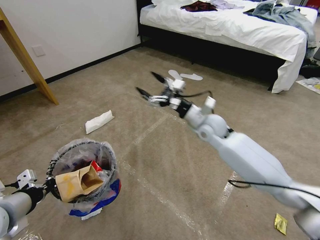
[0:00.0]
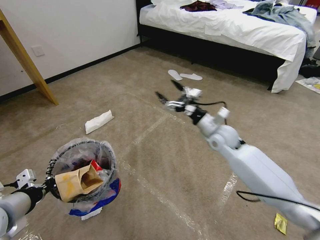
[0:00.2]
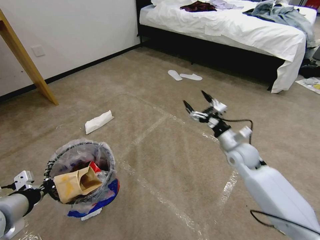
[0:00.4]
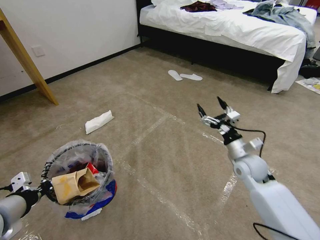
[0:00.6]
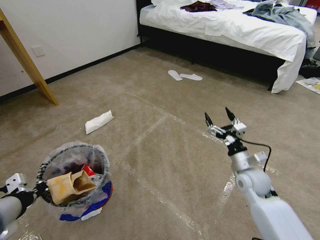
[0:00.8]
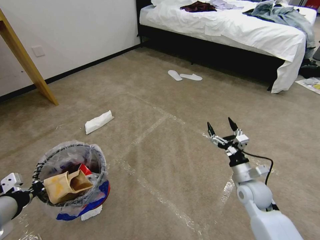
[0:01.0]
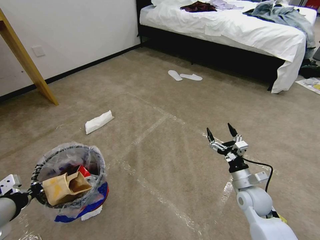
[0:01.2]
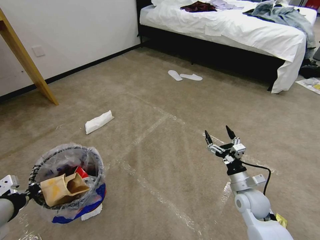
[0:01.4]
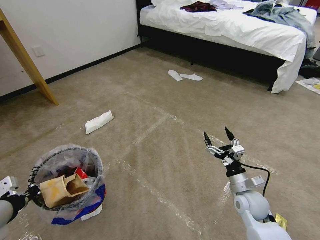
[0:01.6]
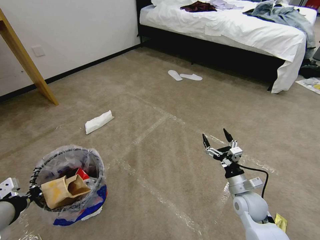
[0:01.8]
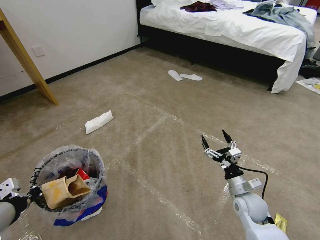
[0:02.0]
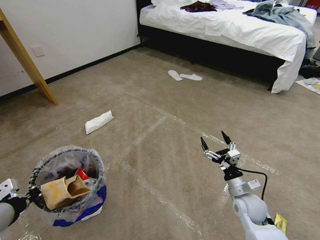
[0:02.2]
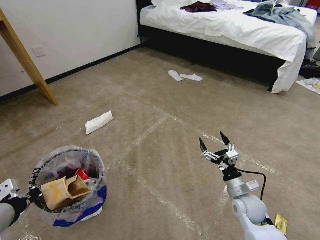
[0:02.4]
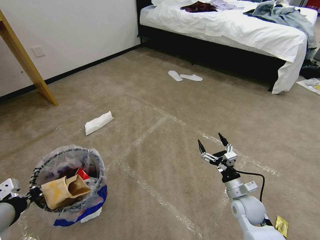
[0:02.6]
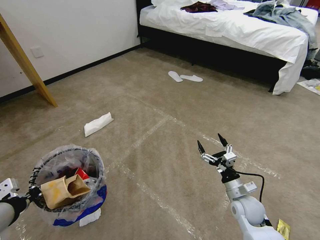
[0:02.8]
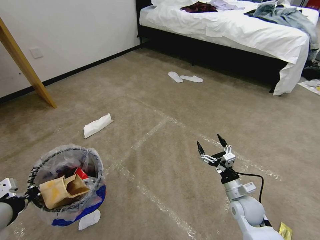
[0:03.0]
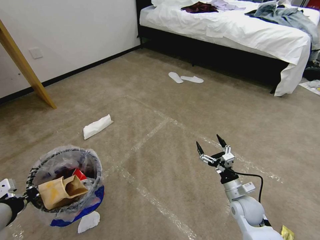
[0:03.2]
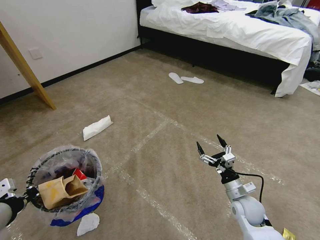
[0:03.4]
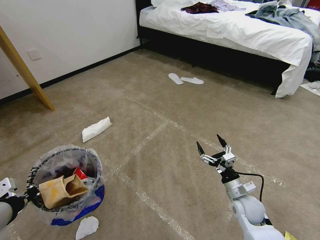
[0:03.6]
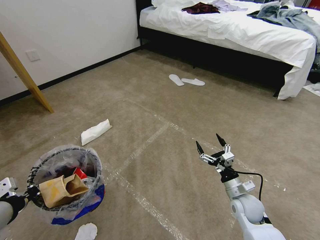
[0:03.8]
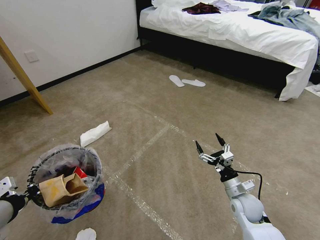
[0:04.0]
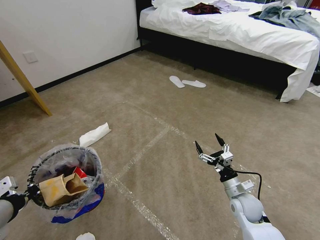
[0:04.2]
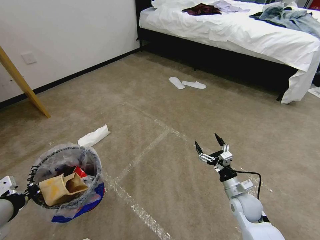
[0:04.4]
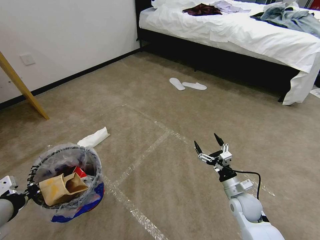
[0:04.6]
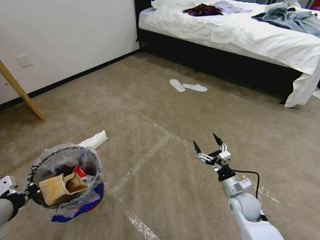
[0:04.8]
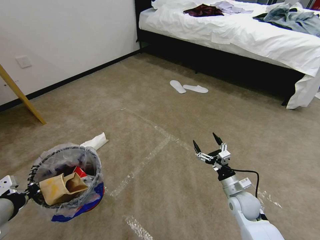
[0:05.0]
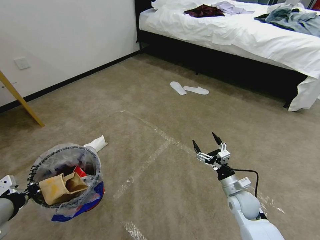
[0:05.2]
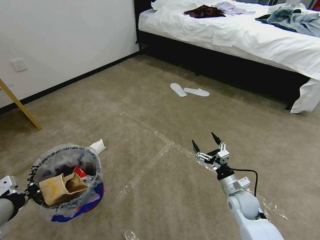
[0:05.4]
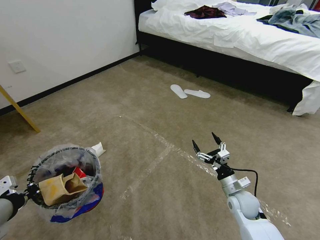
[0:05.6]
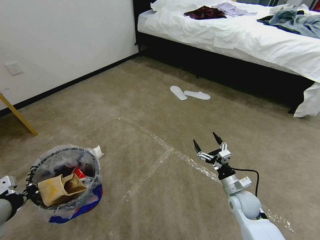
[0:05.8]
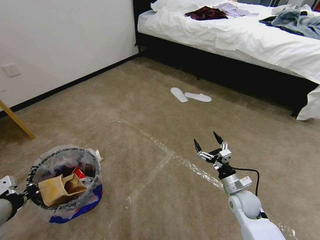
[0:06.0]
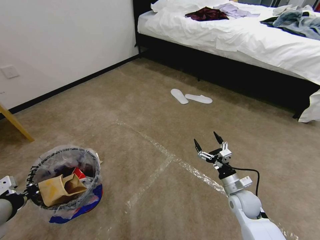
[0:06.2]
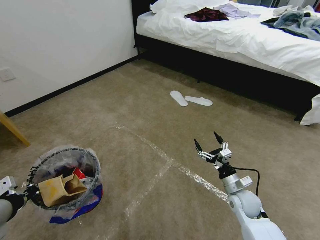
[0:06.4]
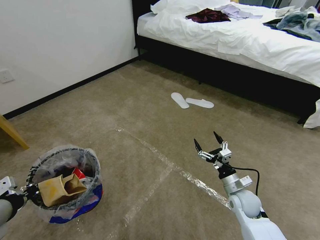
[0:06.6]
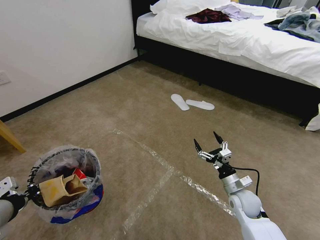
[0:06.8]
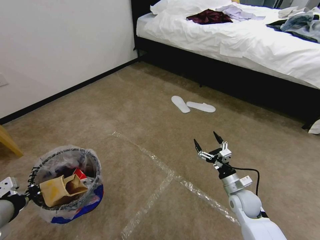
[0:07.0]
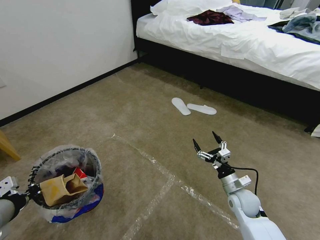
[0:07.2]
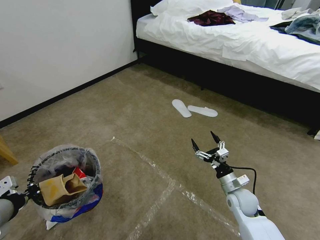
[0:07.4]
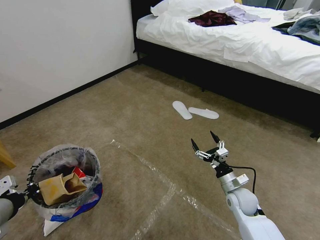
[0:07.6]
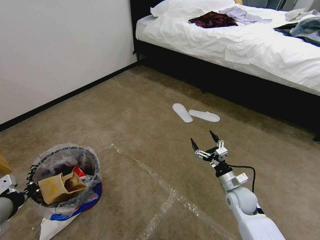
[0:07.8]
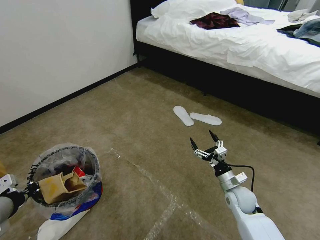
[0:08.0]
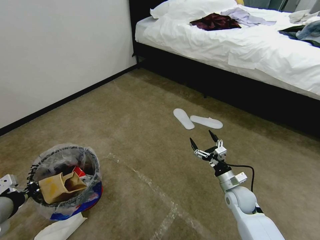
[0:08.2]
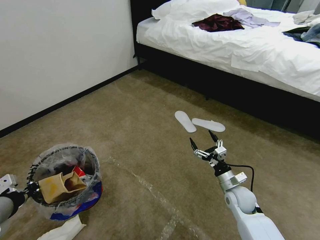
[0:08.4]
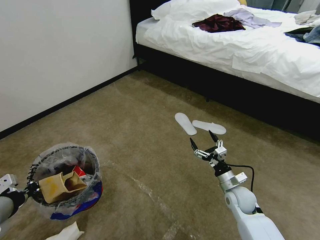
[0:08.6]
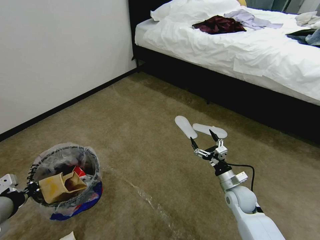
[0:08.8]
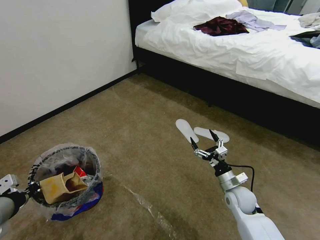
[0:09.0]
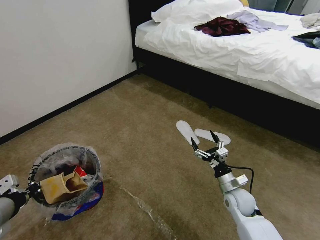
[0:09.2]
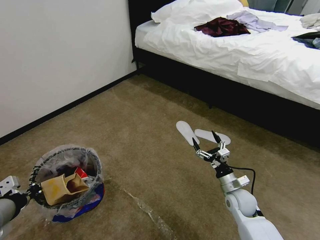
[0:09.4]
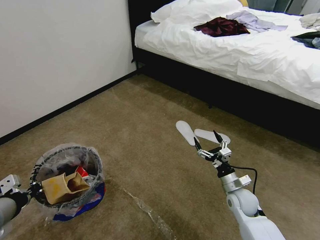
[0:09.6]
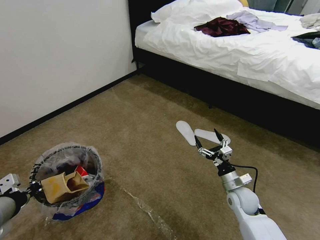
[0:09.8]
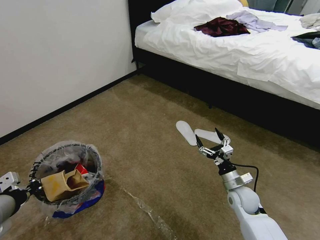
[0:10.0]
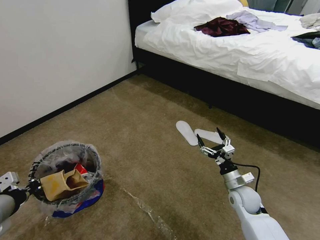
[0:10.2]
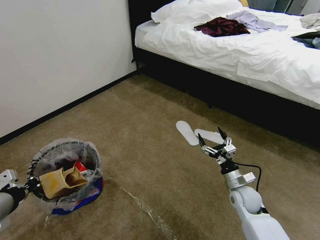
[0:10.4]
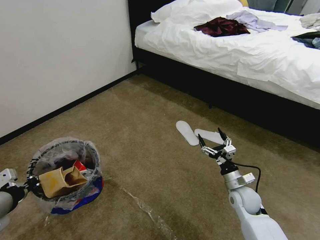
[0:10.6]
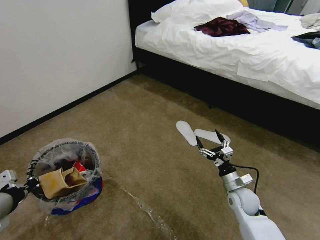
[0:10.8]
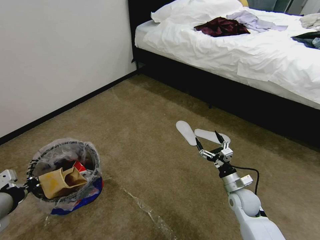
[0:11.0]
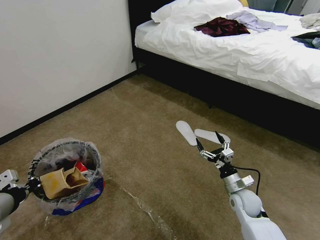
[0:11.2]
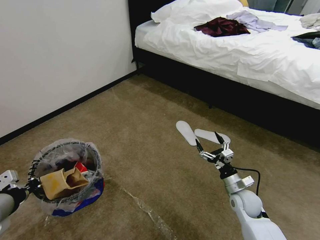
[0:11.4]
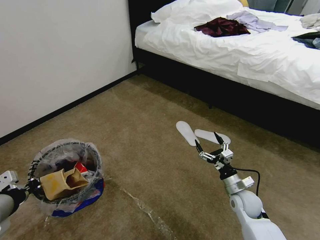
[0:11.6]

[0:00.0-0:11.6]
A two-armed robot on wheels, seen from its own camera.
Task of the whole recording: Pick up the trash bin and place the garbage on the floor into it.
0:00.0 to 0:01.4: The right gripper travels backward, downward and to the right by roughly 30 cm.
0:01.4 to 0:02.8: The grippers make only small movements.
0:08.8 to 0:10.2: The two grippers keep their place.
0:10.2 to 0:11.6: The grippers move only a little.

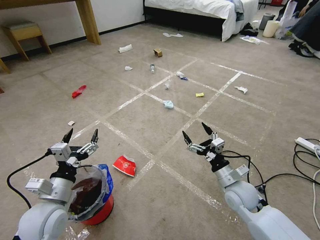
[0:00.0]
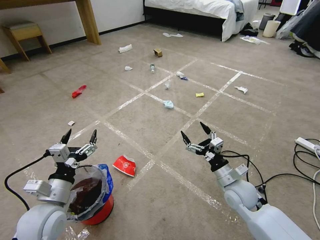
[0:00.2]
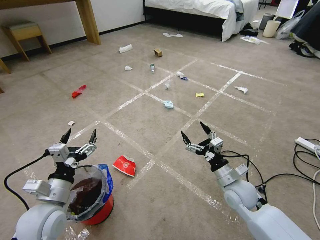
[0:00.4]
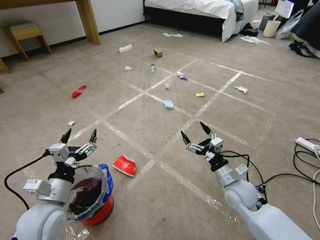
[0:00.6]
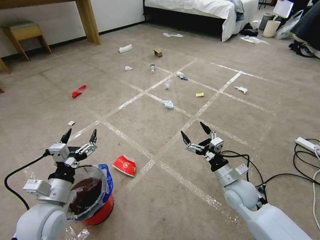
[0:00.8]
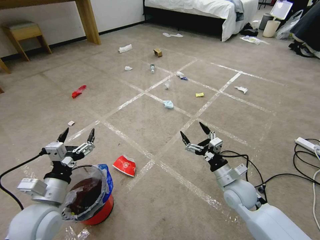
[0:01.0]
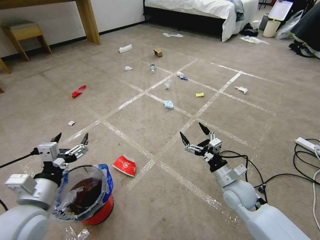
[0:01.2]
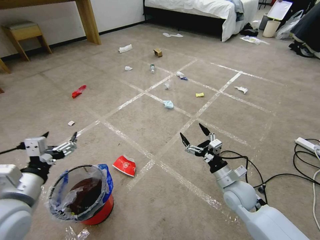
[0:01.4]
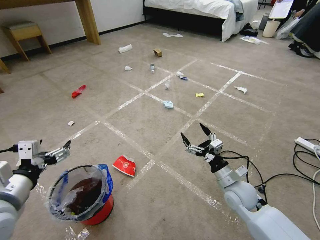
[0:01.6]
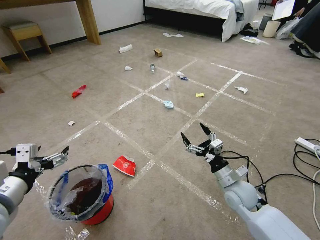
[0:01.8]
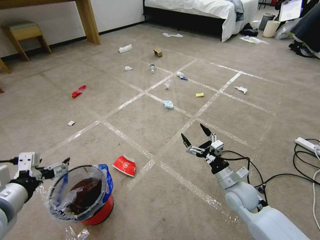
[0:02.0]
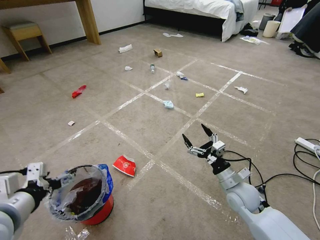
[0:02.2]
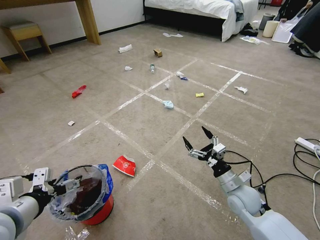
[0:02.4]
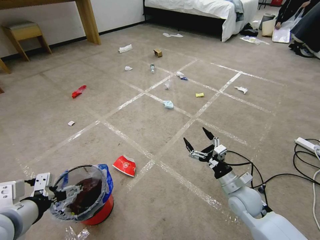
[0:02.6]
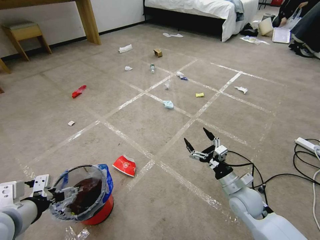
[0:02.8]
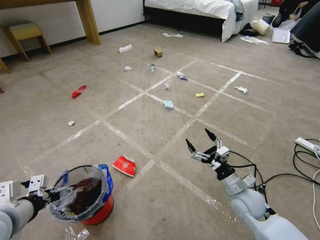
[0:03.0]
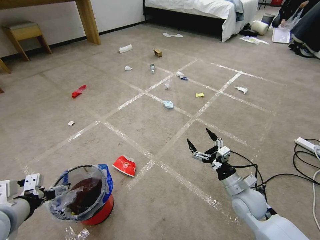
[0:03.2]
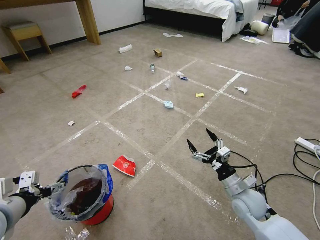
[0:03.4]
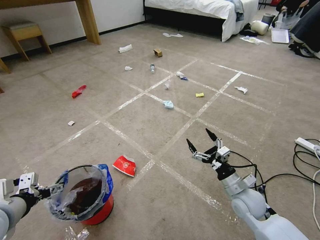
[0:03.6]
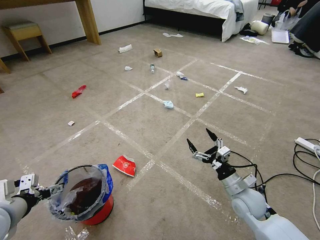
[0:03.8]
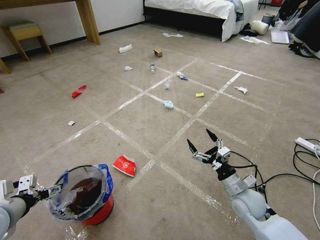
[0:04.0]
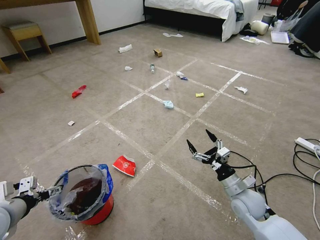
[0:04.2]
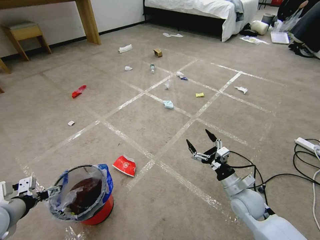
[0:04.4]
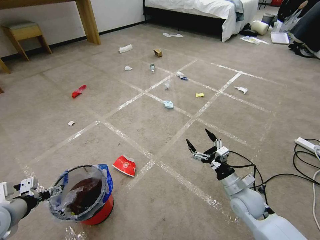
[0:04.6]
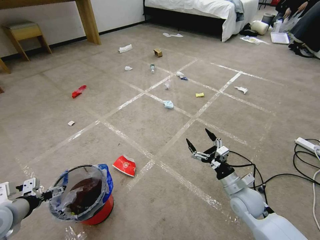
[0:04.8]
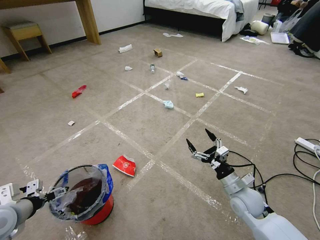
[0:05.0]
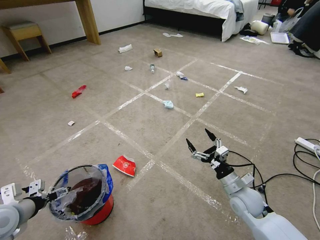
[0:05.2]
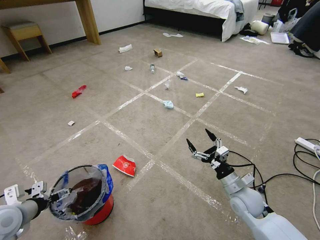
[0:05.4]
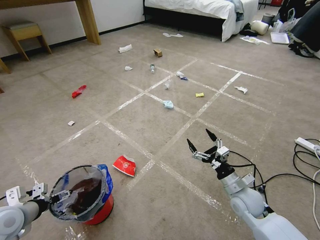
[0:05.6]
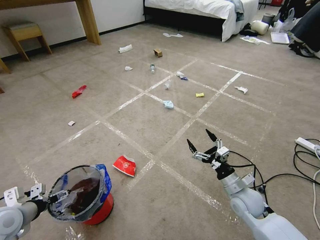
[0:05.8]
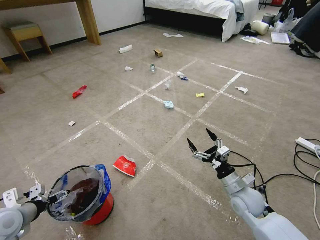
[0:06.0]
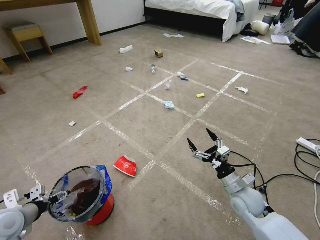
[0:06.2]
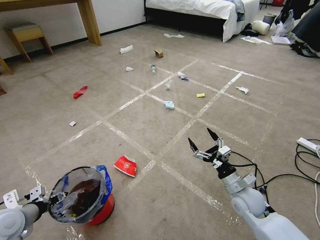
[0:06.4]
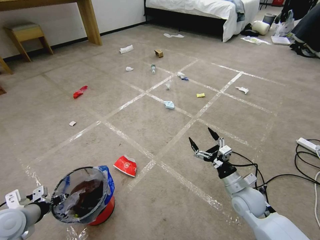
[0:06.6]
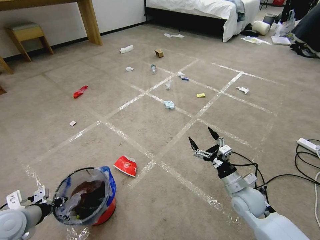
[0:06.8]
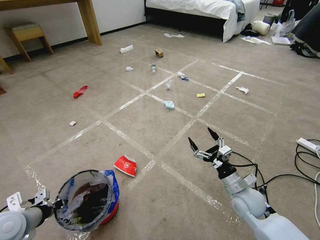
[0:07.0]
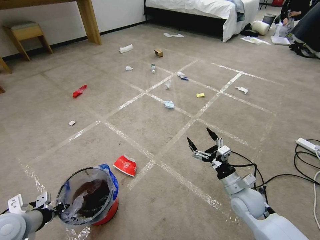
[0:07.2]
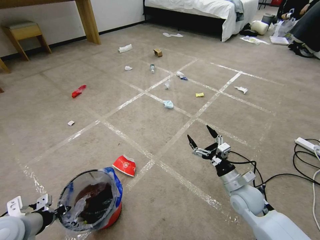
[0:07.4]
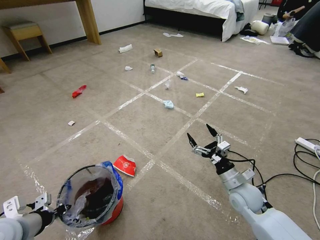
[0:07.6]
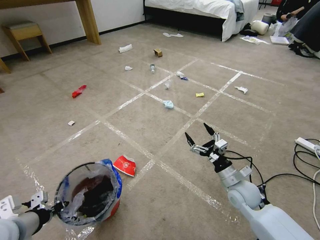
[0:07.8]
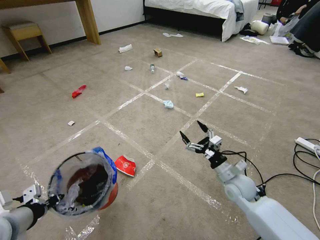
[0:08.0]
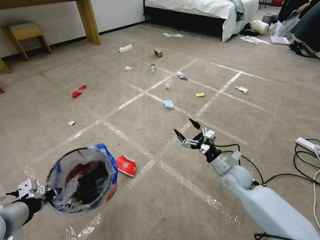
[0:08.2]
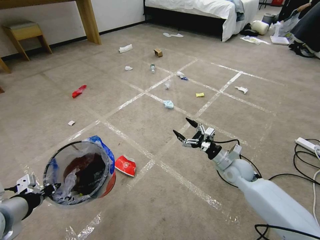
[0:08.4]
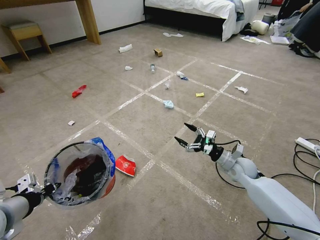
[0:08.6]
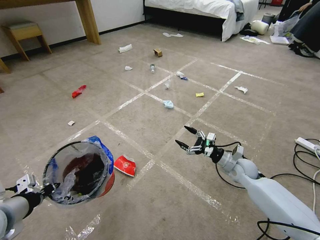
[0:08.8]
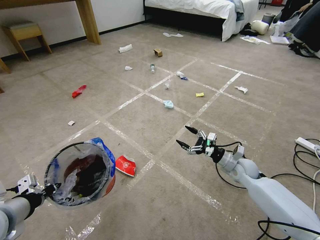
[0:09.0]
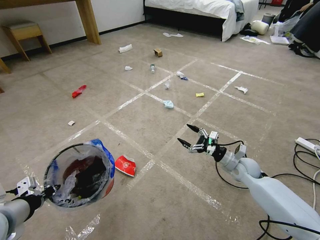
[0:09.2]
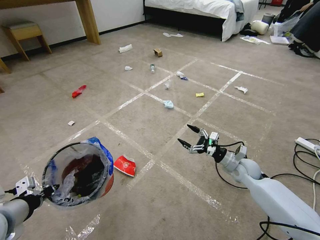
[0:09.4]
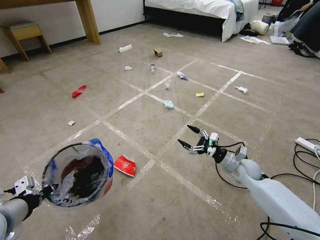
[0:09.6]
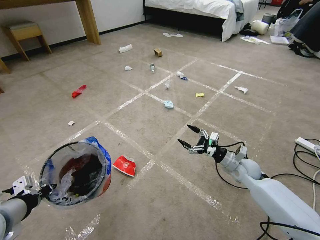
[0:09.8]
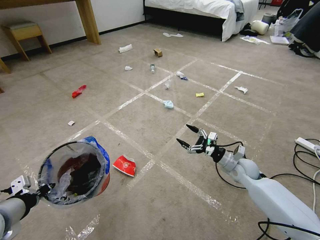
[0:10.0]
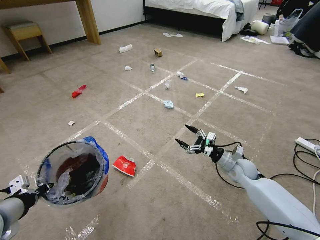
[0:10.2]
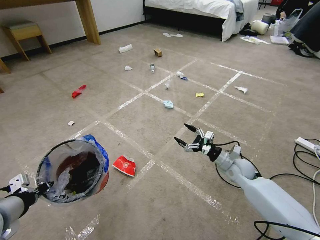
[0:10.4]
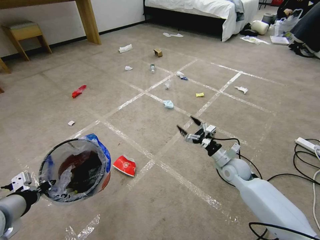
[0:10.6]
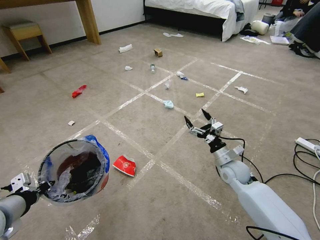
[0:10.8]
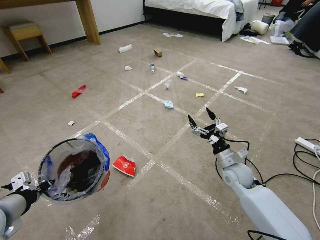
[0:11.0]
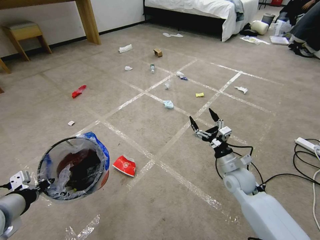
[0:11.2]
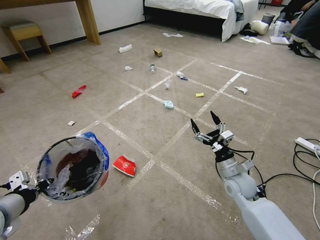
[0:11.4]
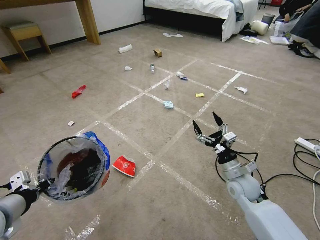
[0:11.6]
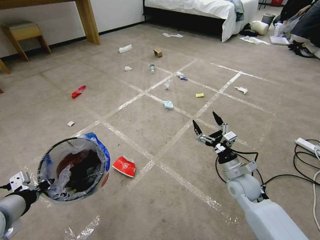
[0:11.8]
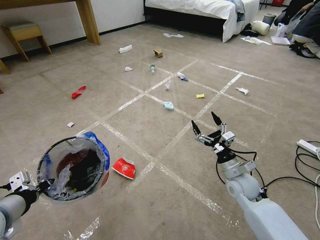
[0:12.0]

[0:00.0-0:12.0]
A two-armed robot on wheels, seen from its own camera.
Task of the whole recording: Pick up the trash bin and place the garbage on the floor into it.
0:03.0 to 0:04.4: The left gripper moves to the left, some 5 cm.
0:04.4 to 0:06.0: The left gripper shifts approximately 5 cm downward.
0:06.0 to 0:07.6: The left gripper is displaced to the right and upward by about 10 cm, and closes its fingers.
0:07.6 to 0:09.0: The right gripper shifts about 10 cm forward, while the left gripper heads upward, covering approximately 5 cm.
0:09.0 to 0:10.4: There are only small adjustments of the grippers.
0:10.4 to 0:12.0: The right gripper goes about 5 cm backward.
